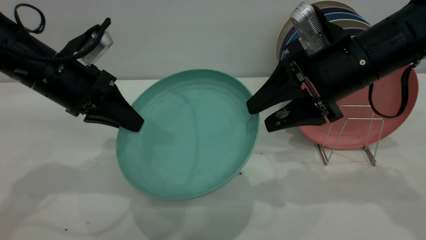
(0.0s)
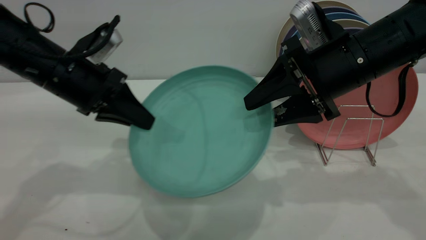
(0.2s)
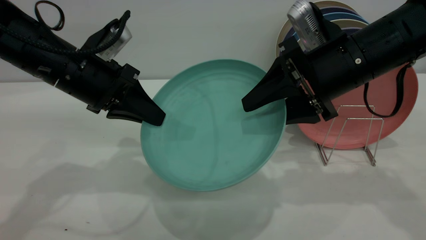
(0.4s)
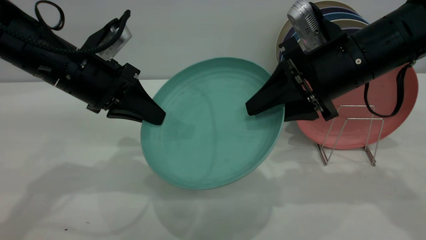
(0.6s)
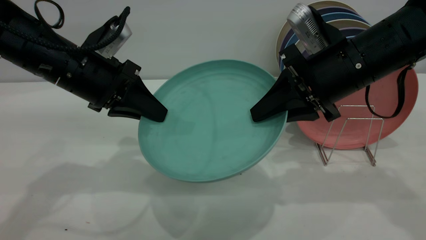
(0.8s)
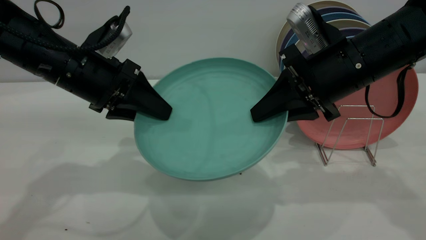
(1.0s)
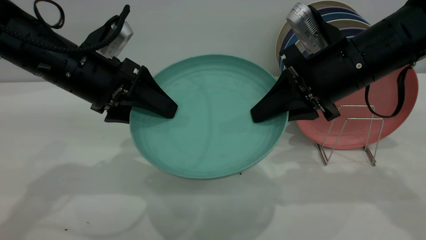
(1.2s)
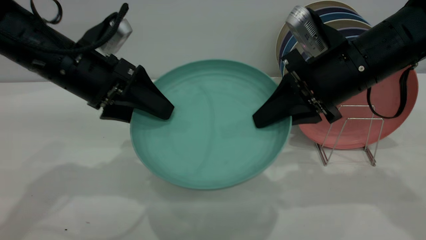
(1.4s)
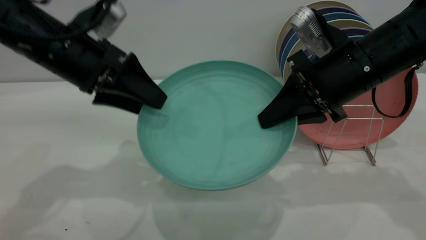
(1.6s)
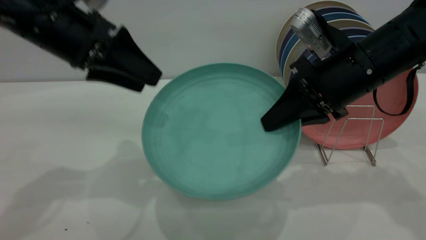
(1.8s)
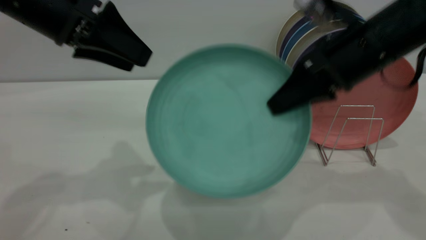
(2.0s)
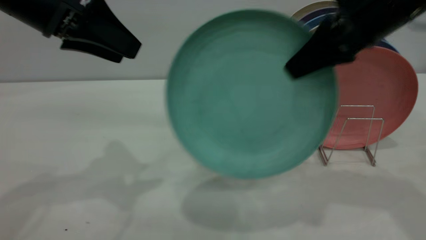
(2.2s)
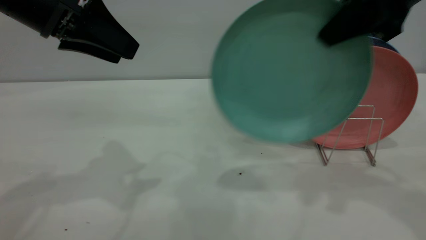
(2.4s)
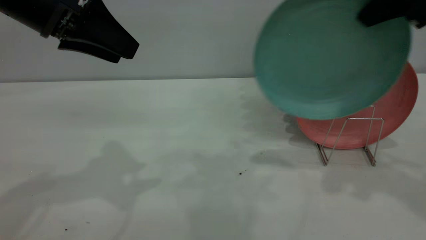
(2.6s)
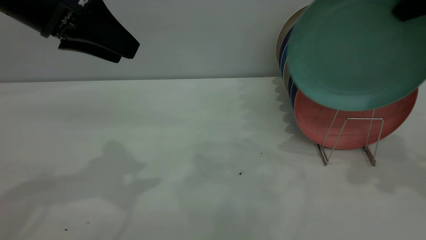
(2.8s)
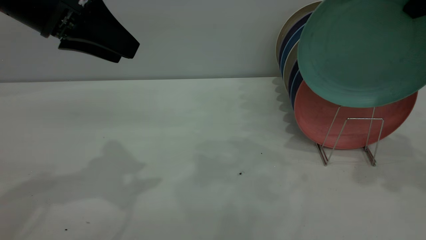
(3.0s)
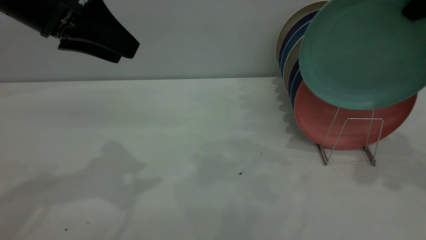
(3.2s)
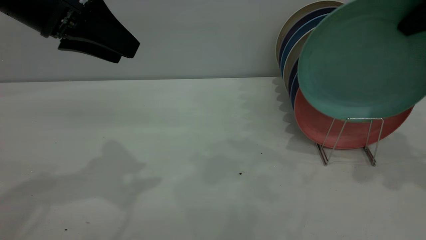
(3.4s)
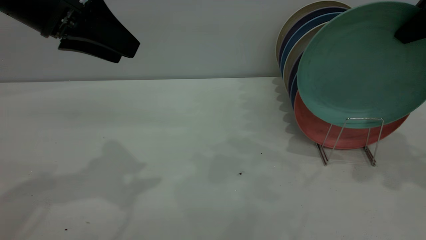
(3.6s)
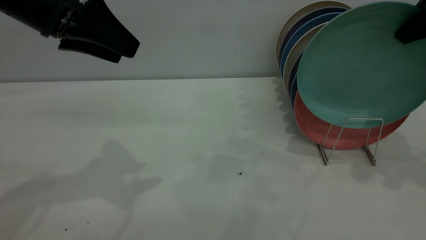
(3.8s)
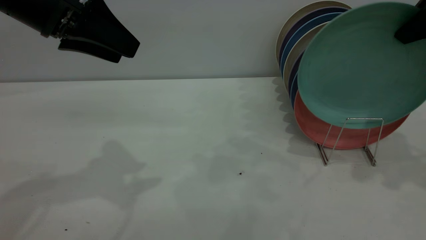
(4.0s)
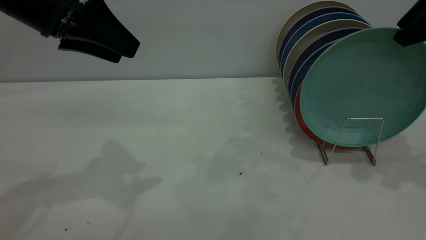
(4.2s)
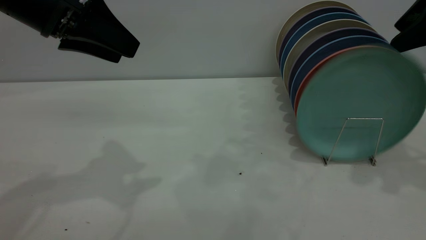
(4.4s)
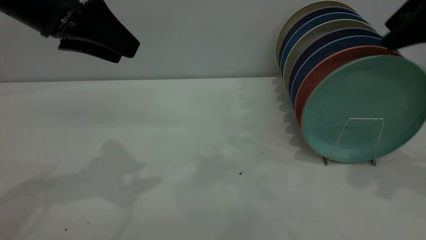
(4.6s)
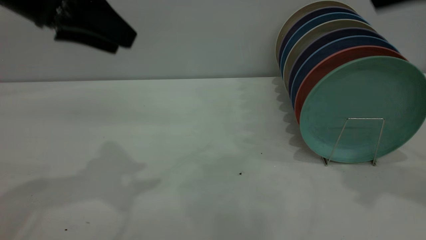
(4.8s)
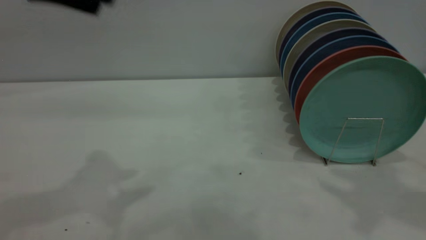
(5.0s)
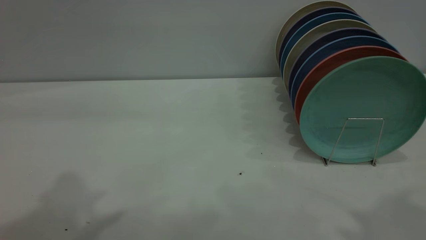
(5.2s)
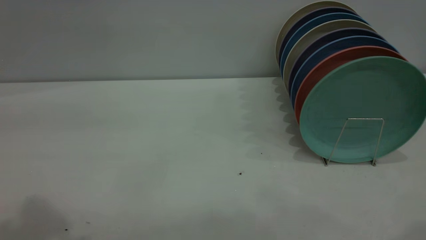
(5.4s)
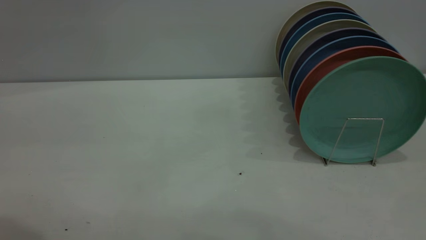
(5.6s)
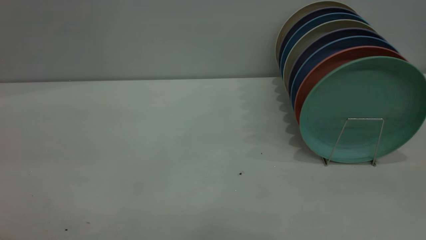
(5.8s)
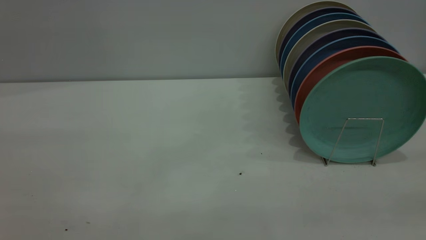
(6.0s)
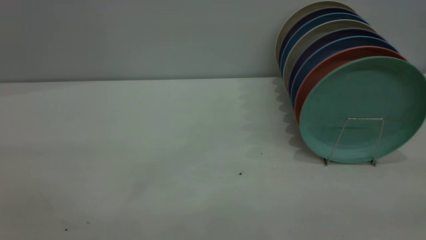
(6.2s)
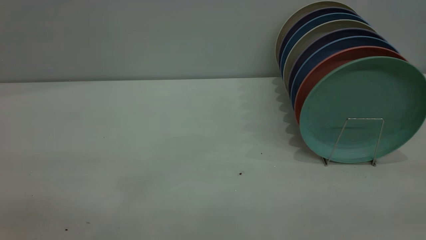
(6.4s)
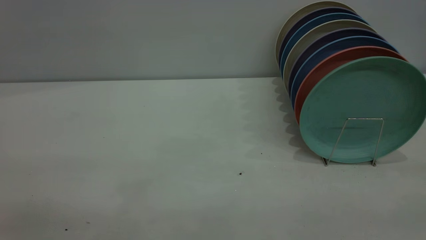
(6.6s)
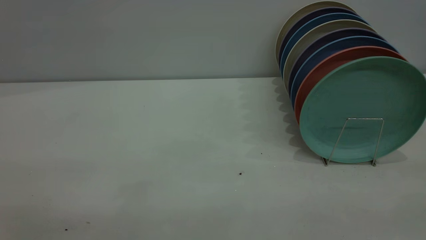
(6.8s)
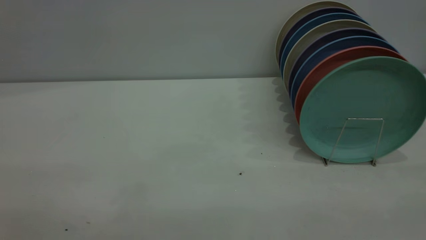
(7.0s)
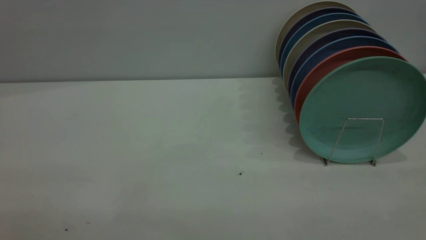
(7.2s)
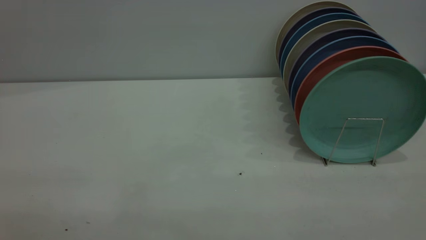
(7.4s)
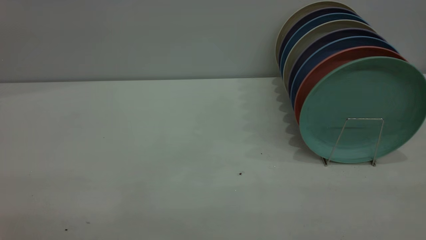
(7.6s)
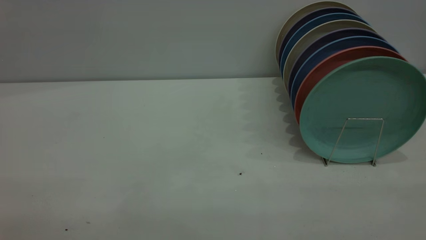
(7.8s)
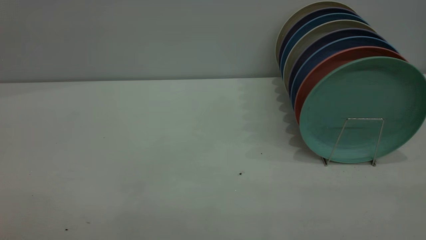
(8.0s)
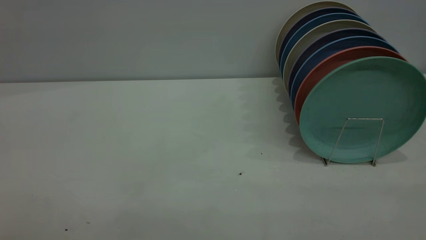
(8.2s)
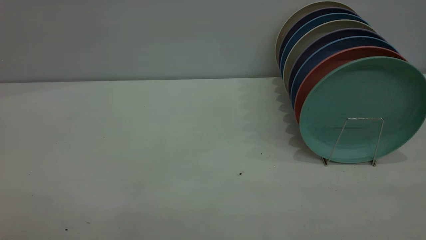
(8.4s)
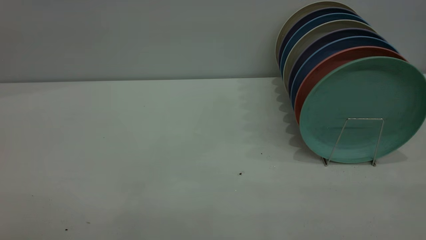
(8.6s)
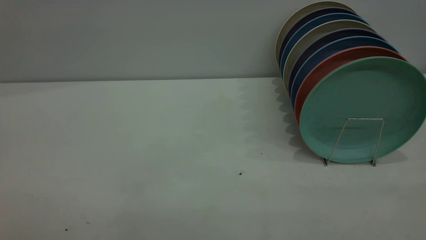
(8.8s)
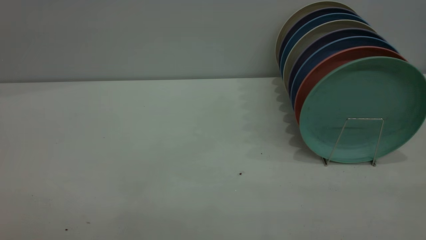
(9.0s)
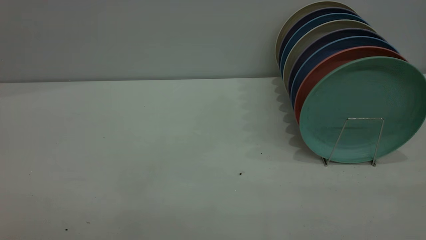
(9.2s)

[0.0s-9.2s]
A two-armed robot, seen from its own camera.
Task of the whole recording: the left gripper grasp the green plate, the left gripper pass the green plate to the right gripper, and the right gripper place the green plate on the plate rack.
Step, 0.0s to 1.8s: Pass the plate from the left gripper to the right gripper.
Step, 2.0s to 4.6s: Place the plate on the shelf.
0.0s to 1.6s: The left gripper shifts by approximately 5 cm, and opens its fingers. Meanwhile the right gripper closes.
1.6s to 3.0s: The right gripper shifts roughly 20 cm to the right and upward, while the left gripper travels upward by about 5 cm.
3.0s to 4.6s: The right gripper opens.
4.6s to 6.2s: The grippers both shift backward by approximately 25 cm.
